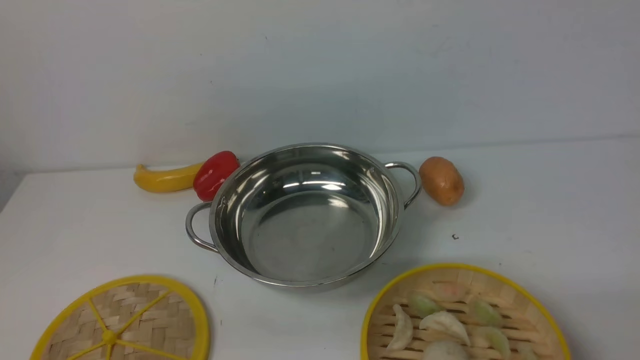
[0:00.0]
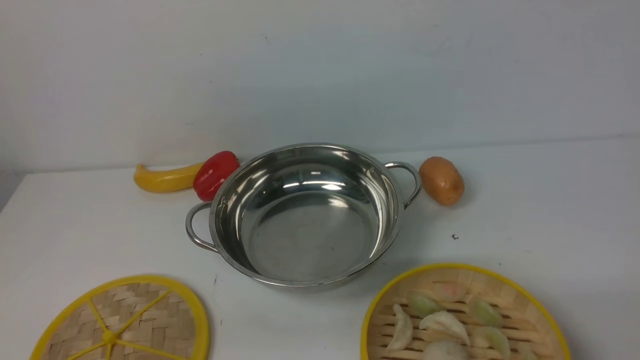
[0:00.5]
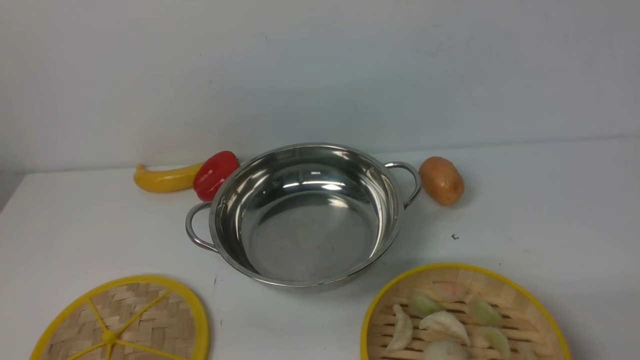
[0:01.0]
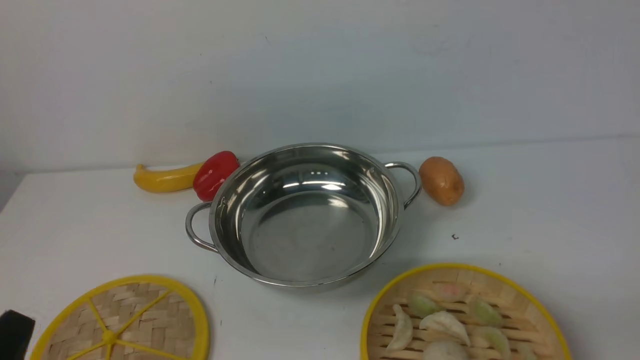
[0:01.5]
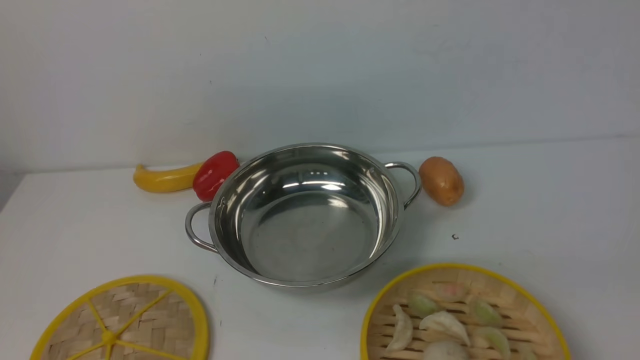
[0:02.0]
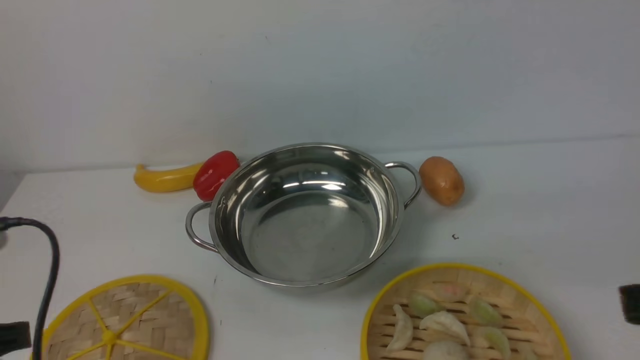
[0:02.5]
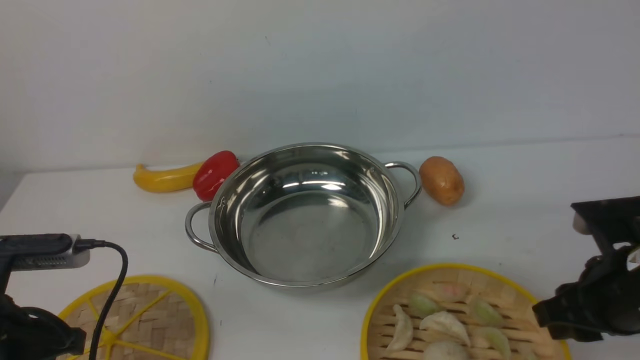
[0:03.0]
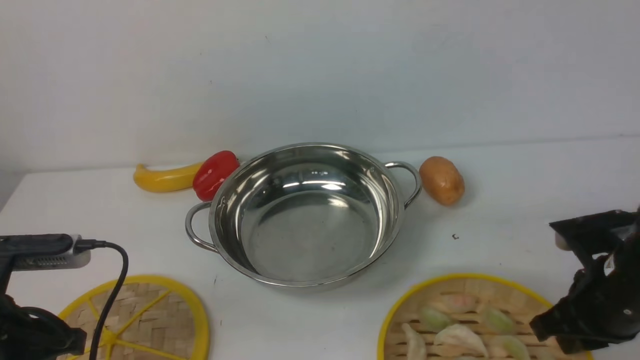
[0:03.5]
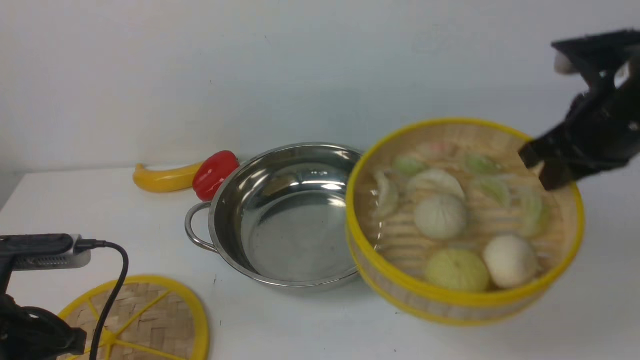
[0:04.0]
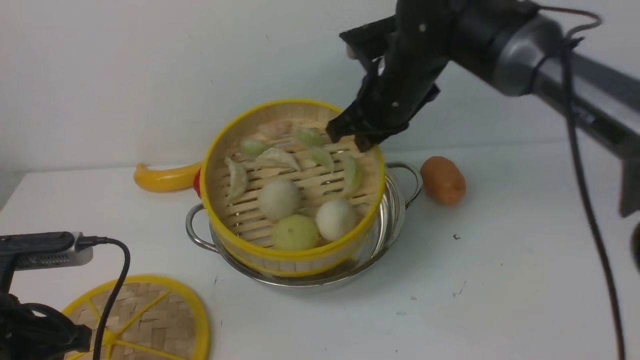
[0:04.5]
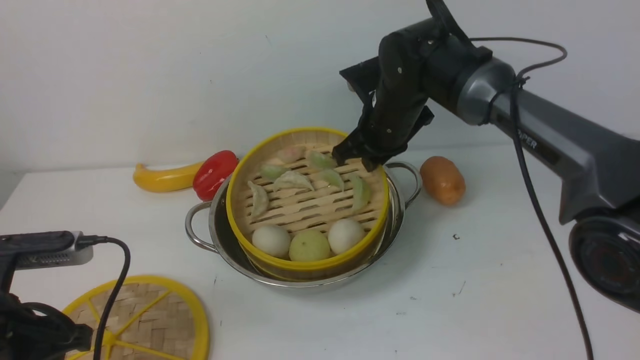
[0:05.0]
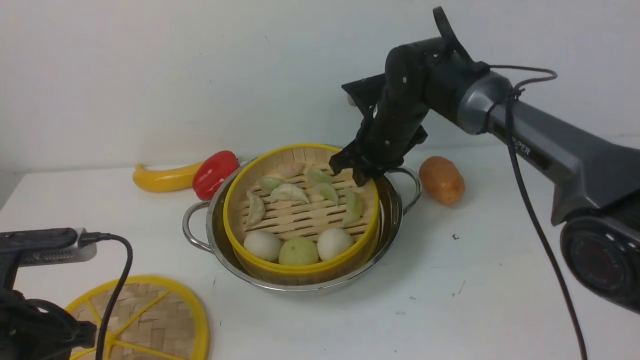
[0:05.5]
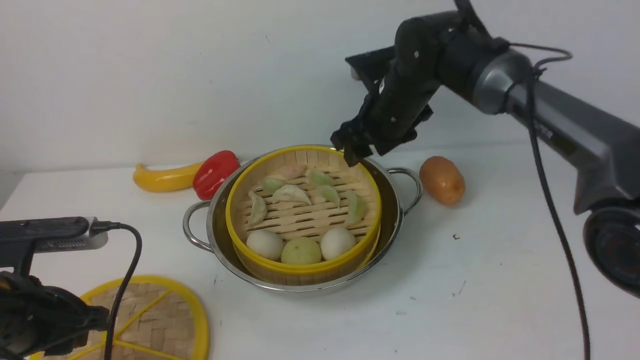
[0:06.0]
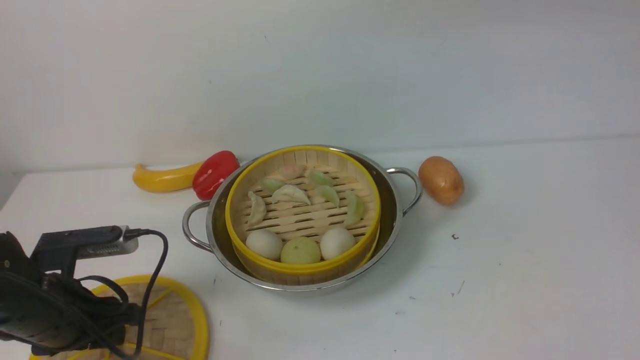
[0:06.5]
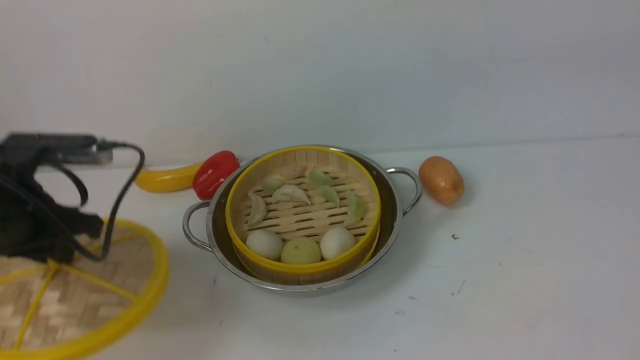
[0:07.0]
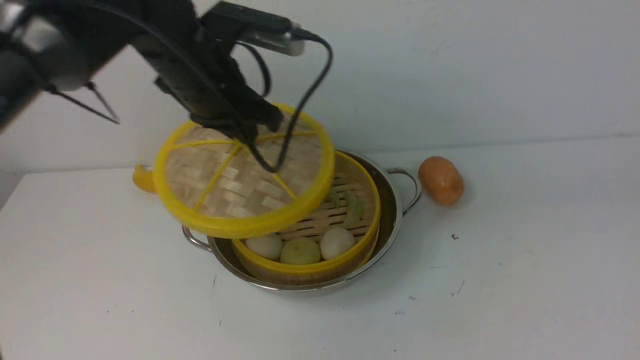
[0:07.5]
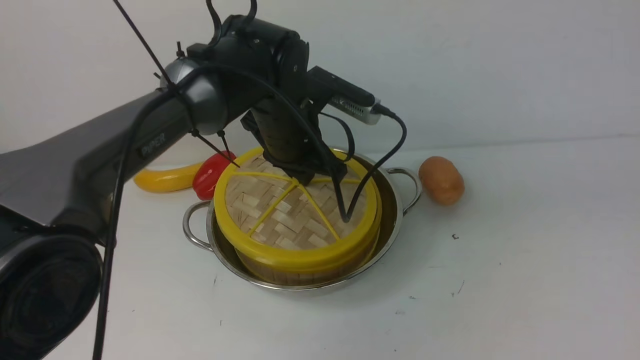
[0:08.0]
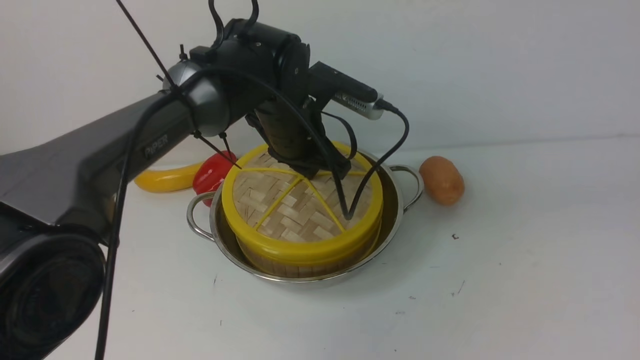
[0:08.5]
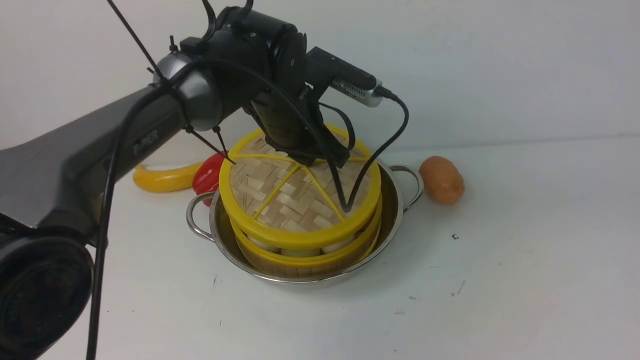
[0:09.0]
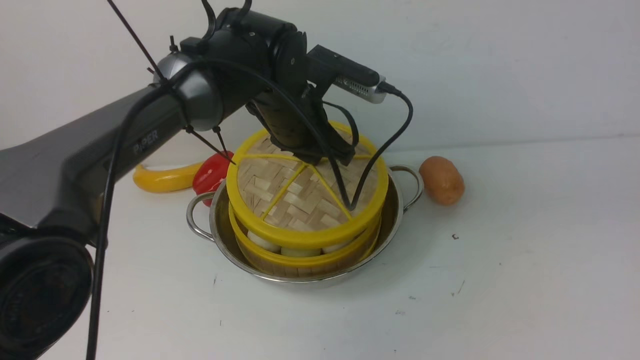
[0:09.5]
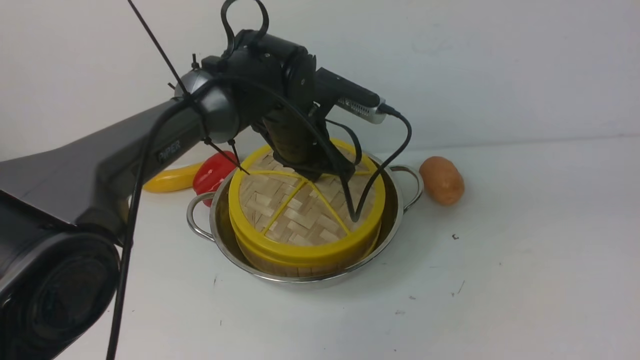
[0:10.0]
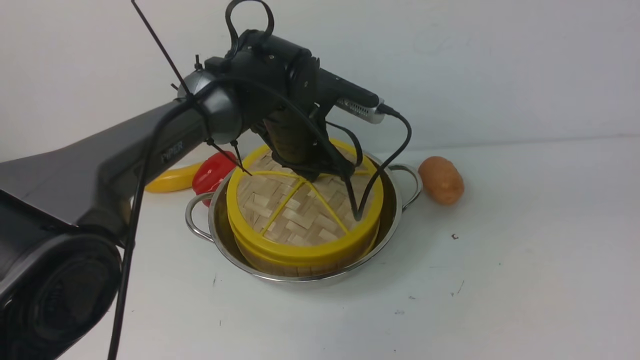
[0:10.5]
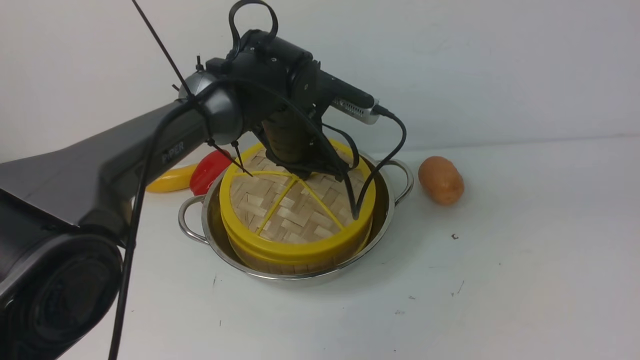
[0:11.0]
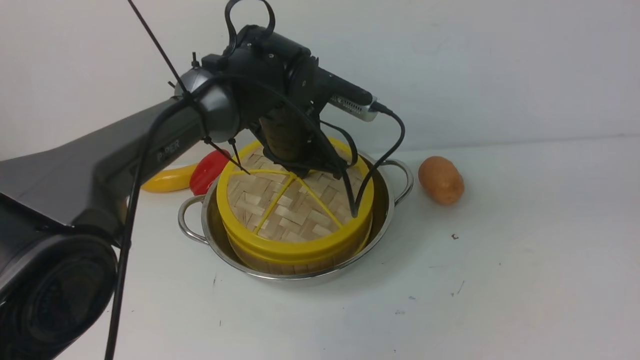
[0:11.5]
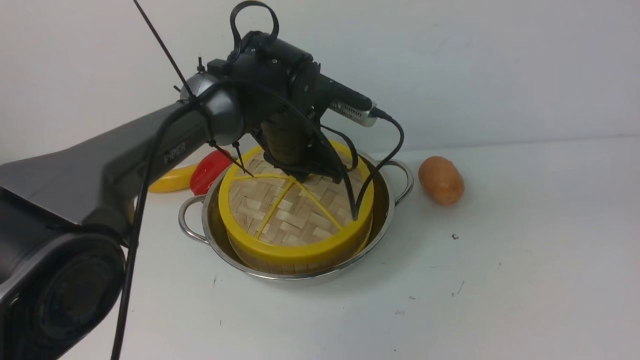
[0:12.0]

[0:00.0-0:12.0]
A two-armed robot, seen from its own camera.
Task of the whole recording: place the steamer in the pot on the white table, and put the lid on the steamer.
Step, 0:00.0 to 0:03.5: use the right arm to lift the steamer closest to it.
Step, 0:04.0 to 0:06.0: use the right arm to put the steamer into the iron steamer pot in the middle.
Step, 0:06.5 to 0:07.0: use the left arm to lift the lid of the steamer.
0:02.0 to 0:04.0: The left gripper is displaced forward by approximately 15 cm; the right gripper shifts about 25 cm forward, and closes up.
0:04.0 to 0:06.0: The right gripper travels to the left and forward by about 20 cm, and opens its fingers.
0:06.0 to 0:08.0: The right gripper moves backward, to the right and upward, roughly 40 cm. The left gripper goes roughly 30 cm to the right and forward, and closes its fingers.
0:08.0 to 0:12.0: There are only small adjustments of the grippers.

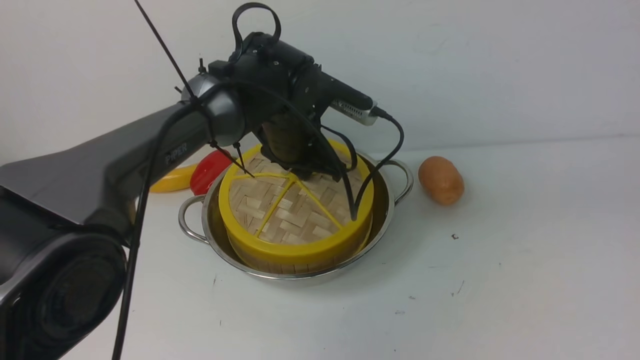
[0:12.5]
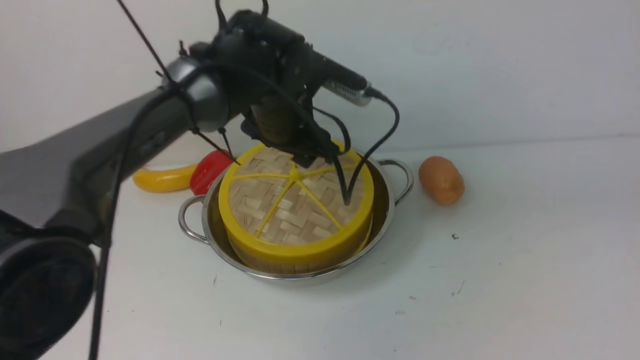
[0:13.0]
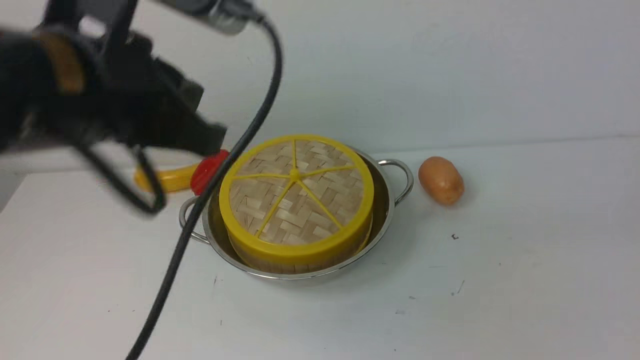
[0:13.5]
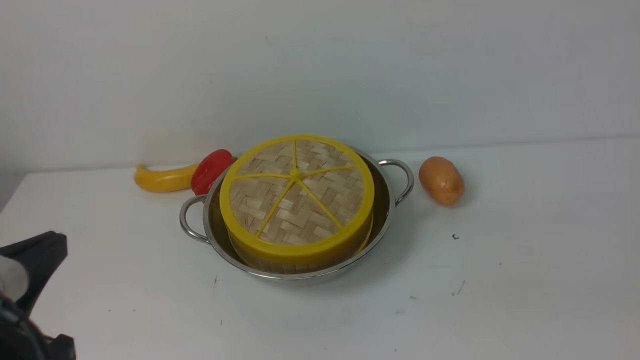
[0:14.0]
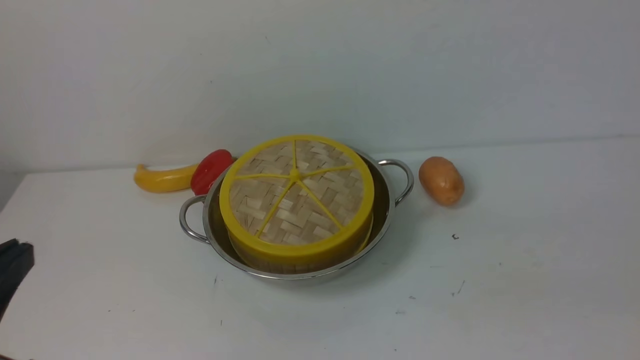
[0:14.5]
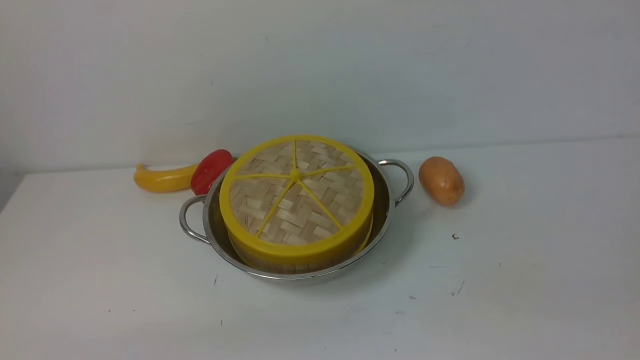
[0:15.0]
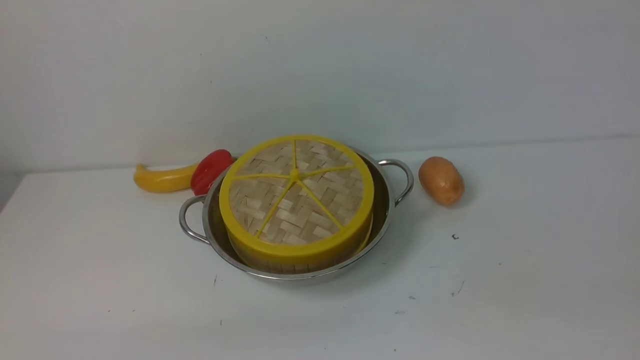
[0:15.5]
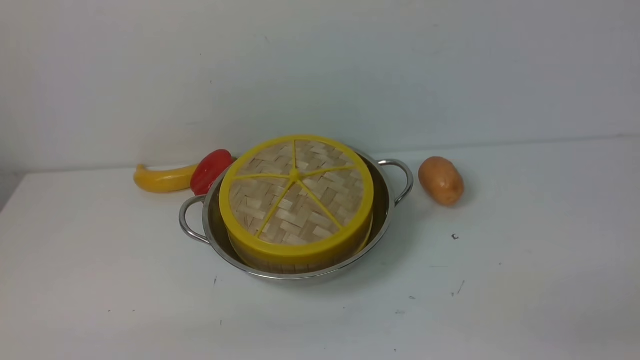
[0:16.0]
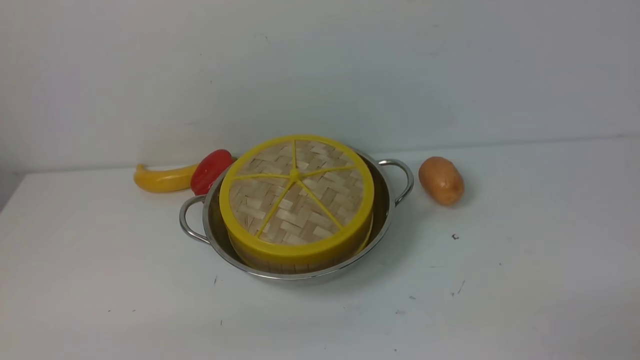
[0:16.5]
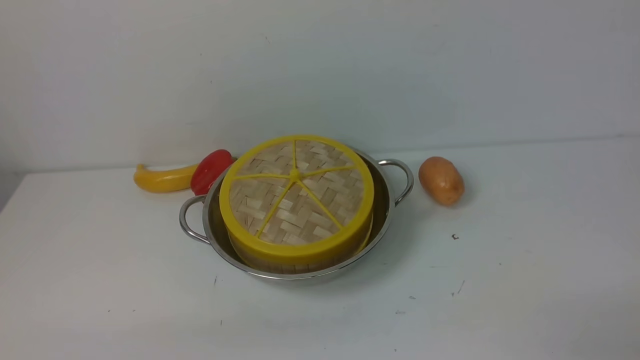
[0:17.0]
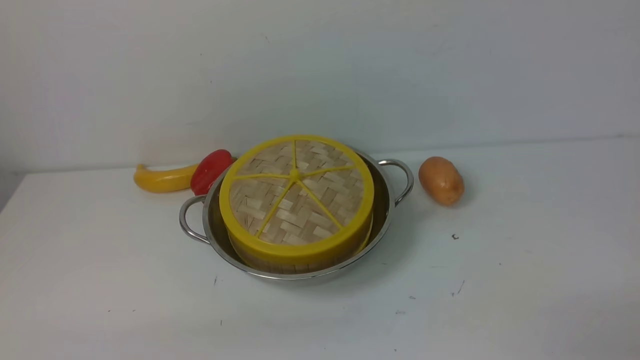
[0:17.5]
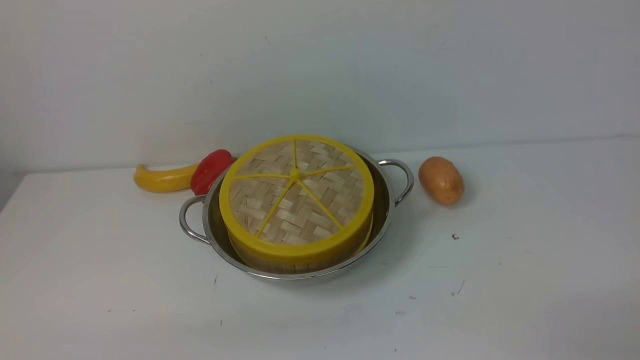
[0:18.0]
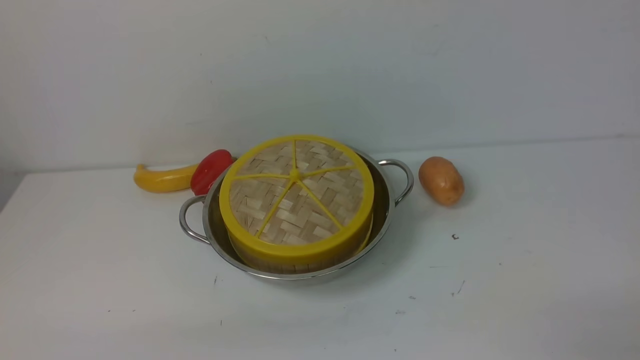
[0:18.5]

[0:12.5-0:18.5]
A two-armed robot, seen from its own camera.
Task of the whole recording: place the steamer in the pot on the white table, and put the lid on the steamer.
0:12.5 to 0:14.5: The right gripper shifts approximately 10 cm downward, and closes. The left gripper travels backward and to the left by roughly 40 cm, and closes up.
0:14.5 to 0:16.5: The left gripper goes roughly 10 cm downward.
0:16.5 to 0:18.5: Neither gripper changes place.
